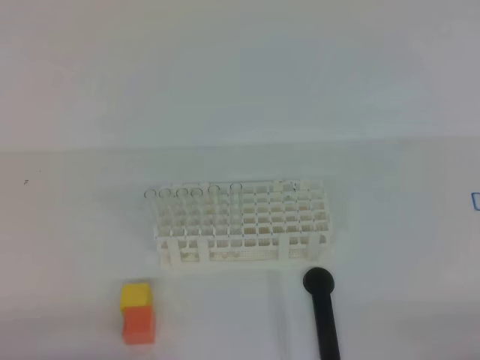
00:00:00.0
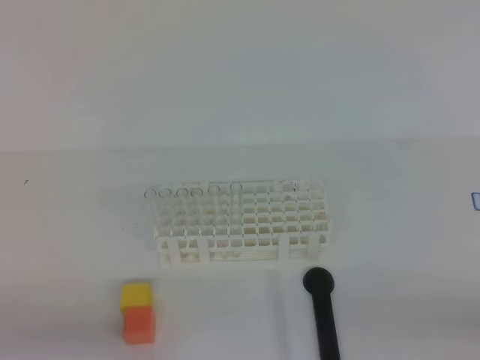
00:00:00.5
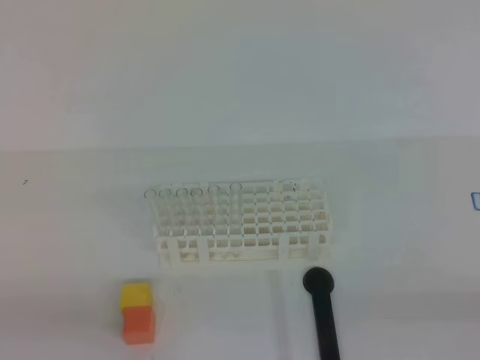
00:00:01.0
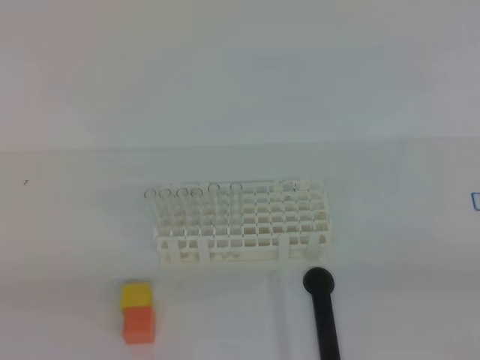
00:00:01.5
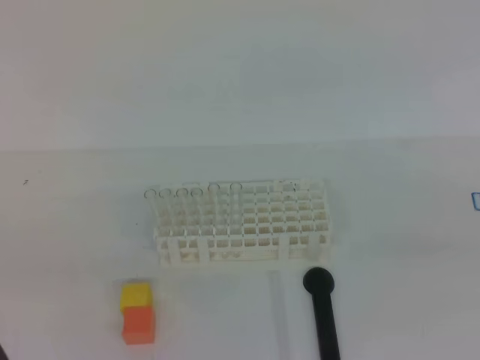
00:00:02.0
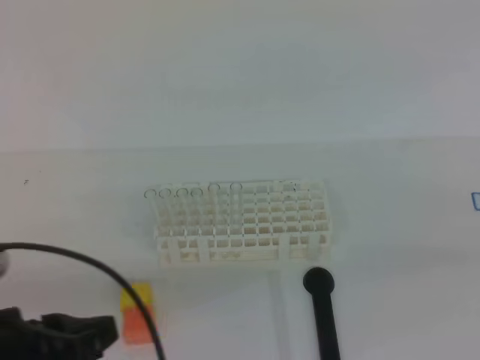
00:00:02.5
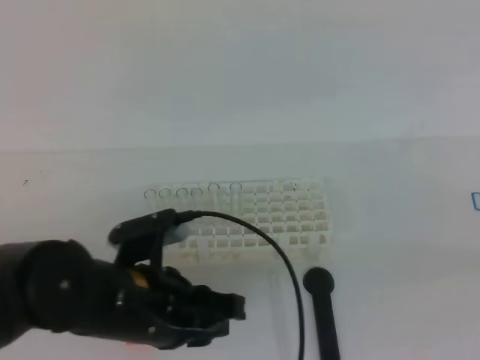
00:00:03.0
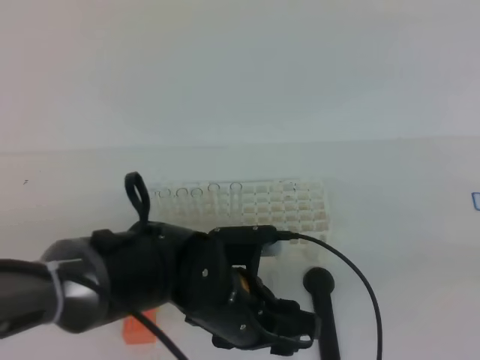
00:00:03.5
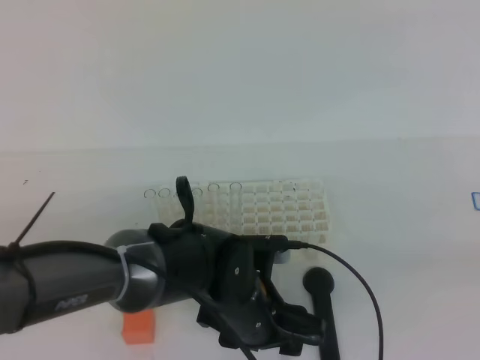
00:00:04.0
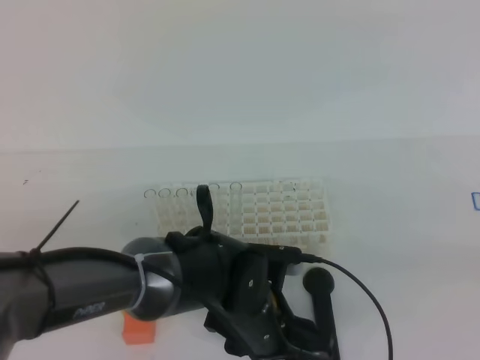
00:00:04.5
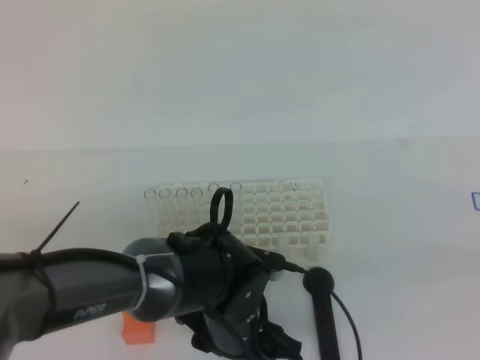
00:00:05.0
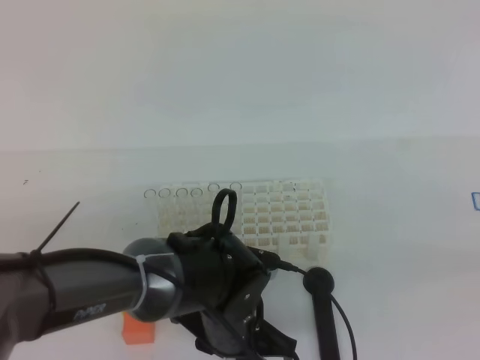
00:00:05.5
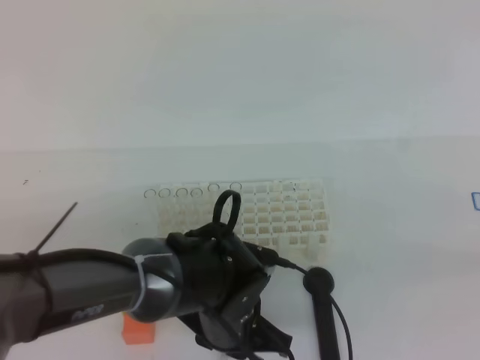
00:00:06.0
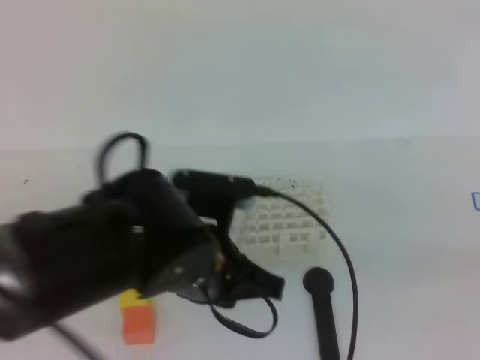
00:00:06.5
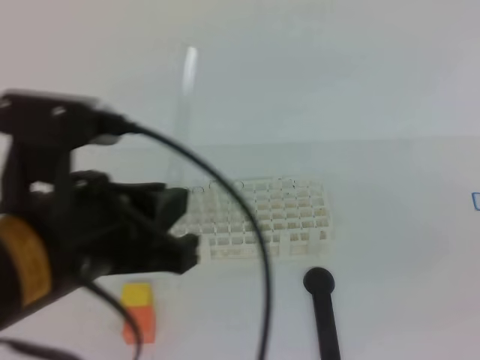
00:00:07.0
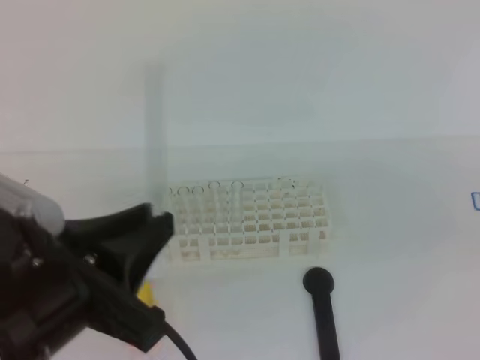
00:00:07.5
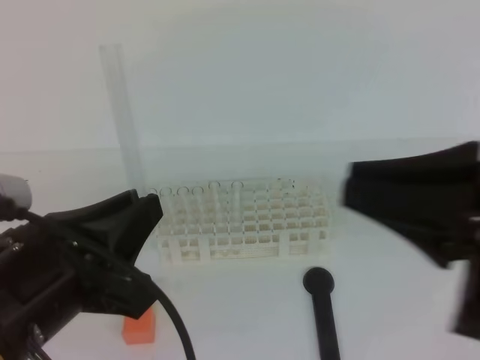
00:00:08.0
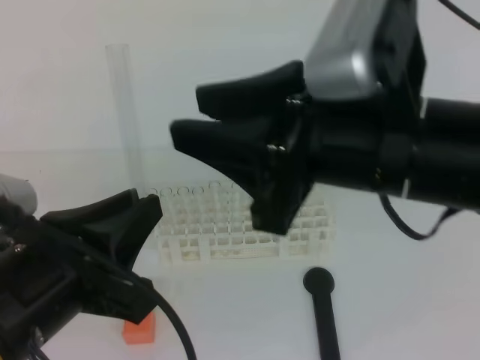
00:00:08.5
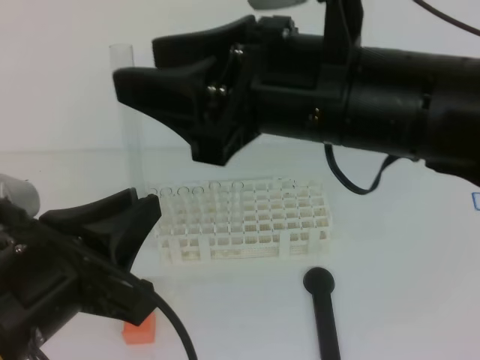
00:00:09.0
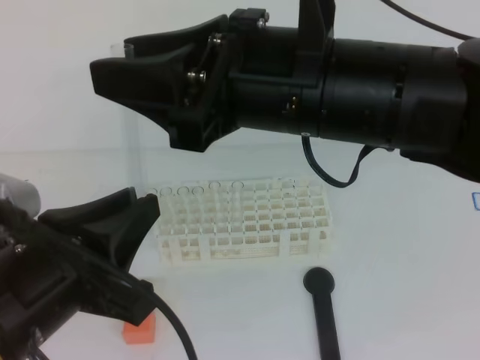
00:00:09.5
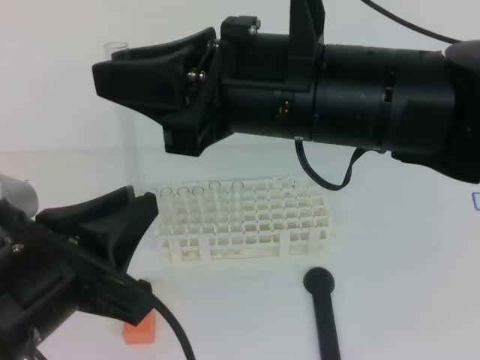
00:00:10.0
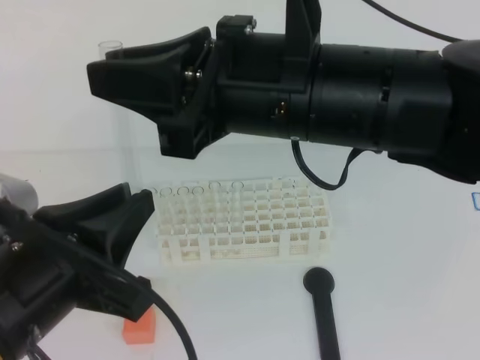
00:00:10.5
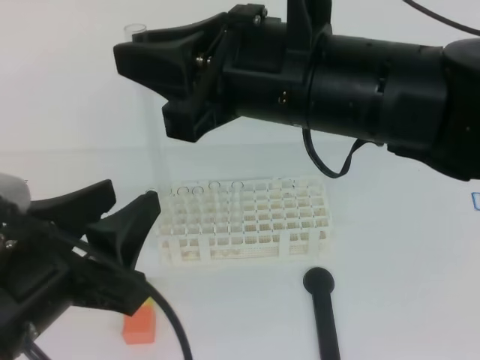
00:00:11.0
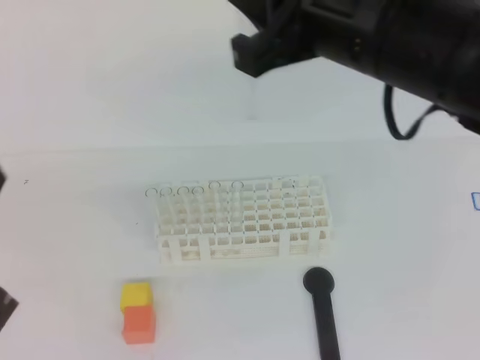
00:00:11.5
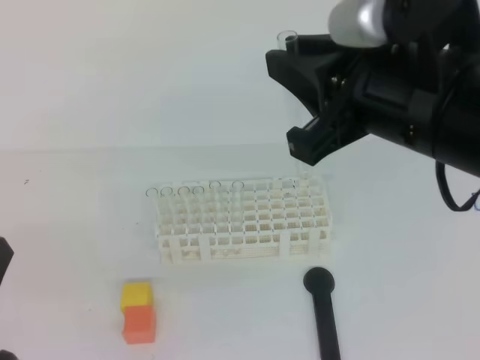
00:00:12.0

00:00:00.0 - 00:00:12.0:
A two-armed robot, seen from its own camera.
00:00:02.0 - 00:00:04.0: The left gripper heads to the right, forward and downward, covering some 35 cm, and opens up.
00:00:04.0 - 00:00:06.0: The left gripper closes its fingers.
00:00:06.0 - 00:00:08.0: The left gripper heads upward, to the left and backward, covering about 25 cm. Meanwhile the right gripper travels to the left and forward by about 15 cm.
00:00:08.0 - 00:00:10.0: The right gripper goes some 15 cm to the left and forward, and opens and closes again.
00:00:10.0 - 00:00:12.0: The right gripper heads to the right, covering about 10 cm; the left gripper goes about 10 cm to the left, and opens, then closes again.

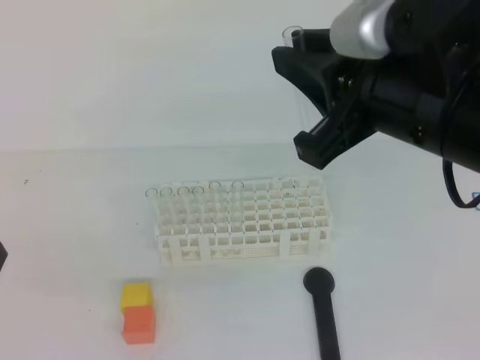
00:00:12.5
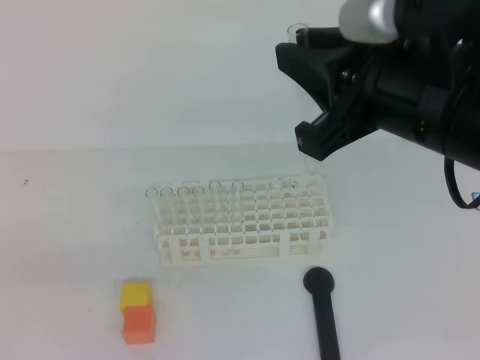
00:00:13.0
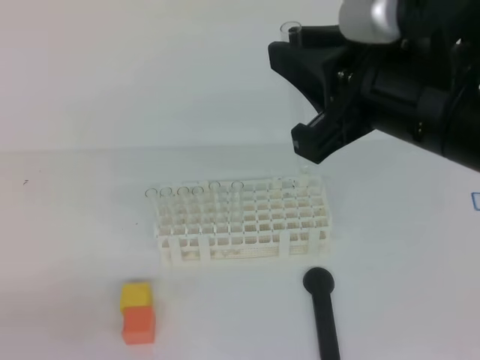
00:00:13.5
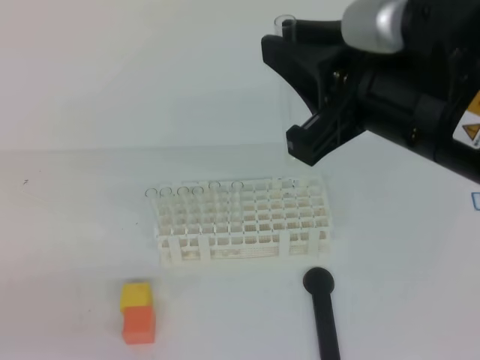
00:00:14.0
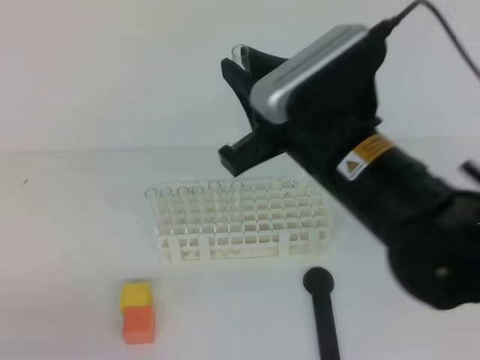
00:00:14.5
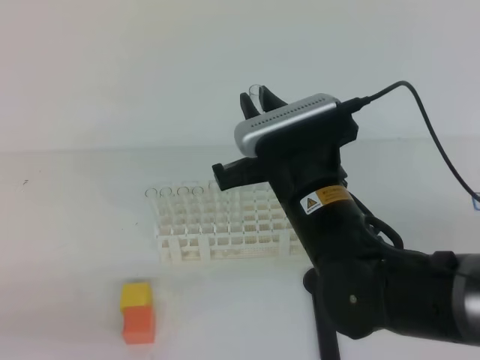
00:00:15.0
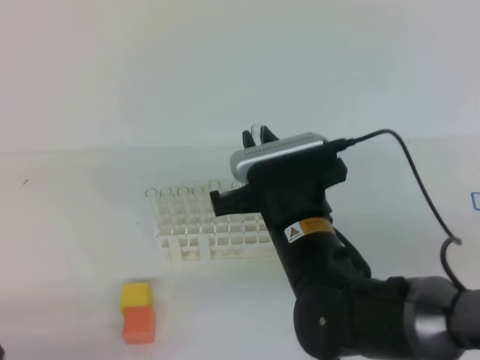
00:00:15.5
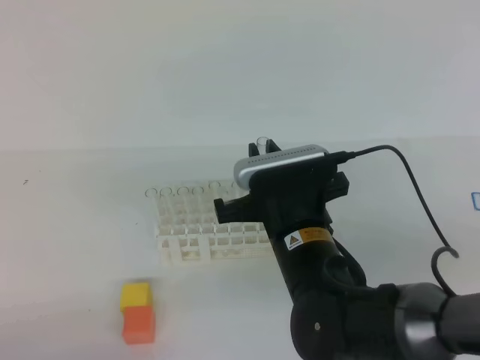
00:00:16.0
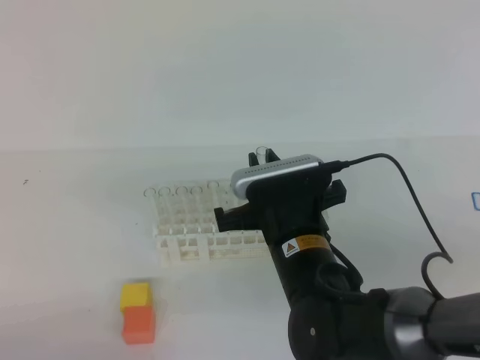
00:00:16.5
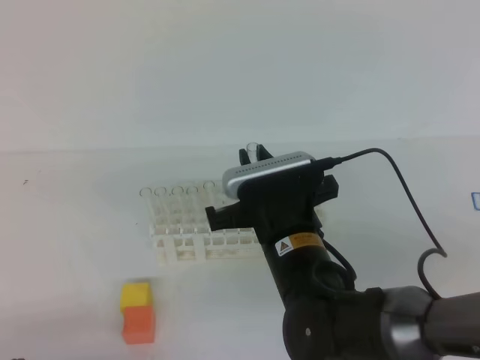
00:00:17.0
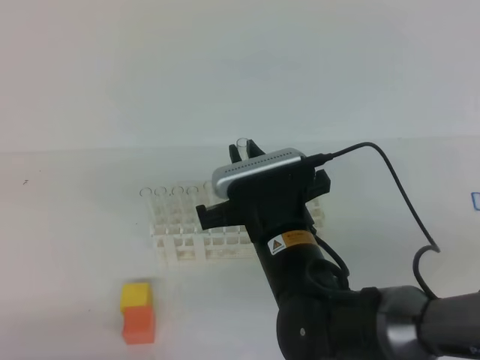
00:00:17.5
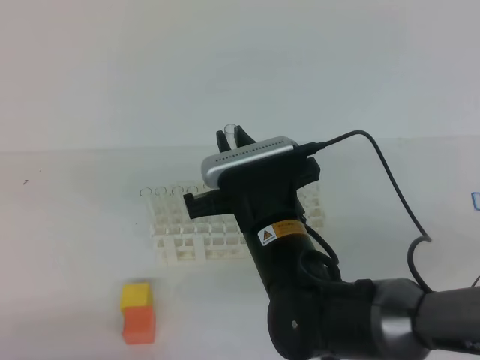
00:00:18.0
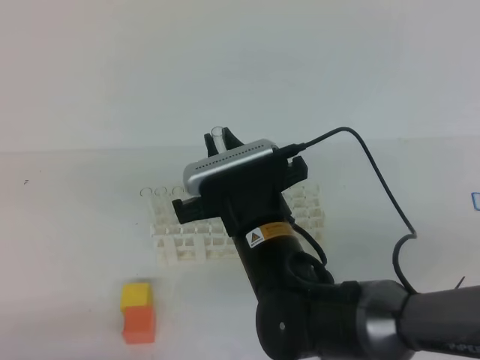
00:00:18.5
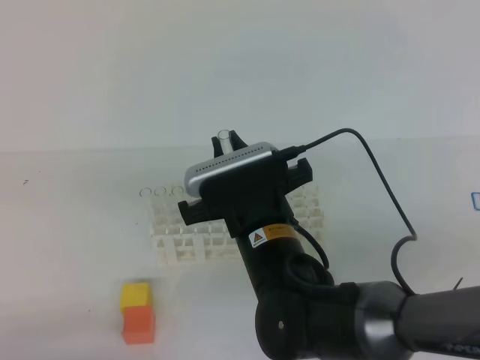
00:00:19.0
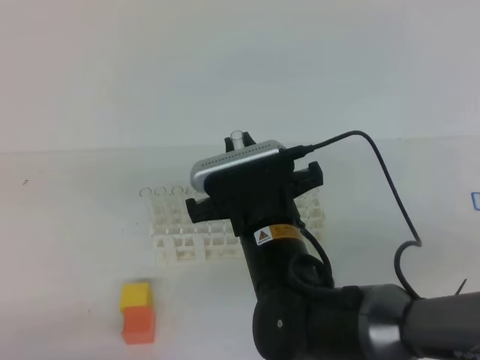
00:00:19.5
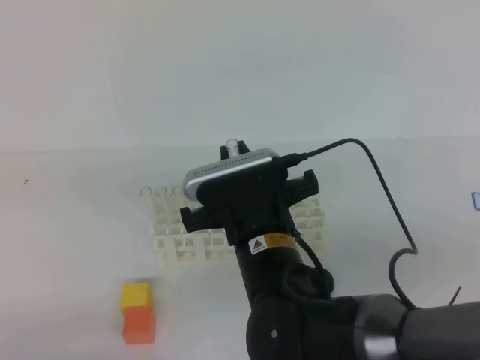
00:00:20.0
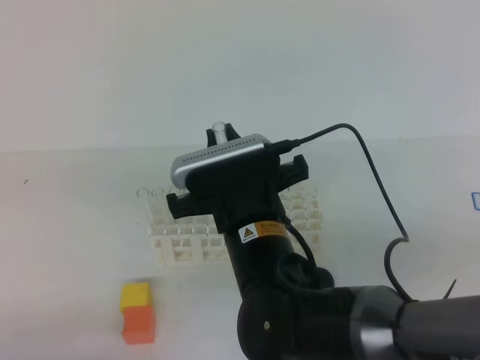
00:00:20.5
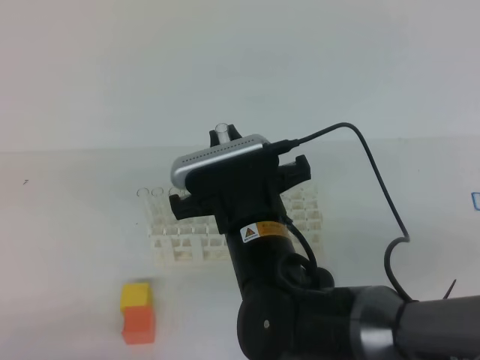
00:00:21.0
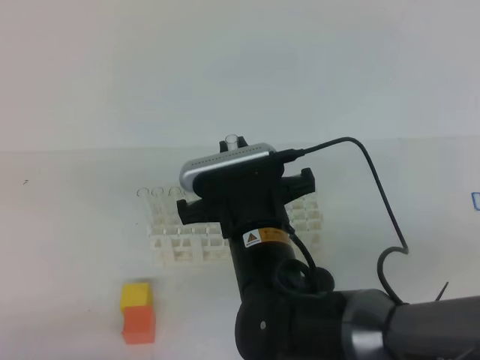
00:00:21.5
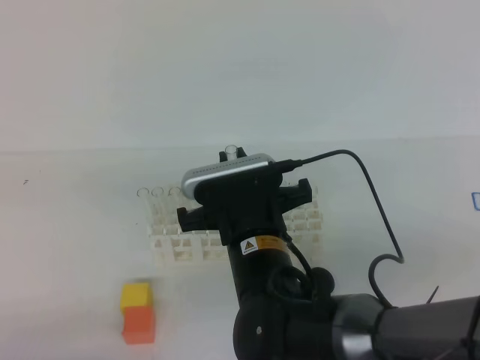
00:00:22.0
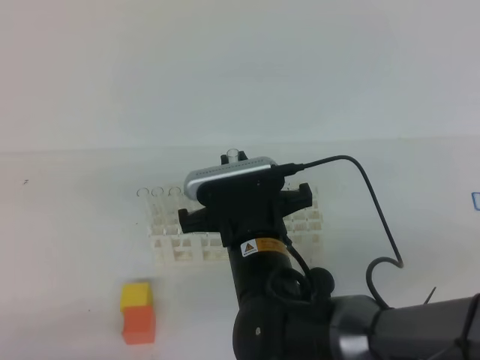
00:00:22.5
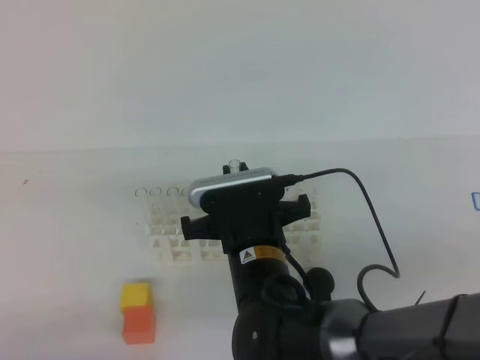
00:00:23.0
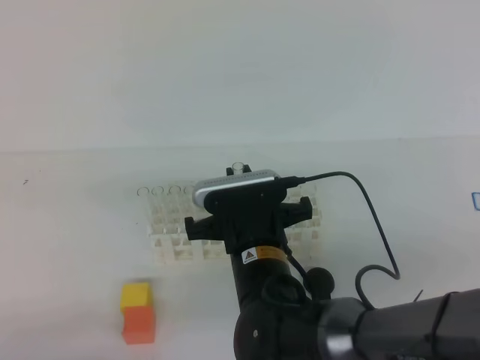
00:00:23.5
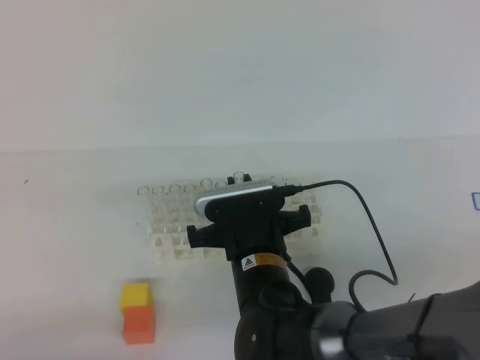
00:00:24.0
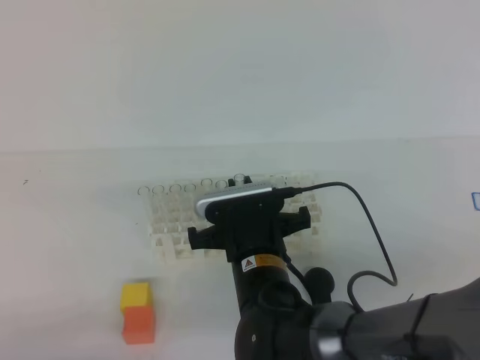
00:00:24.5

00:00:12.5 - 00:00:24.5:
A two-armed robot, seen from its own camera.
00:00:12.5 - 00:00:14.5: The left gripper travels downward by roughly 5 cm; the right gripper travels downward and to the left by about 10 cm.
00:00:14.5 - 00:00:16.5: The left gripper shifts about 5 cm downward, while the right gripper heads downward, covering roughly 15 cm.
00:00:16.5 - 00:00:24.5: The grippers stay close to where they were, moving slightly.

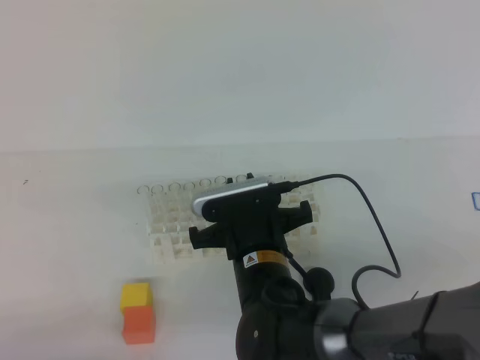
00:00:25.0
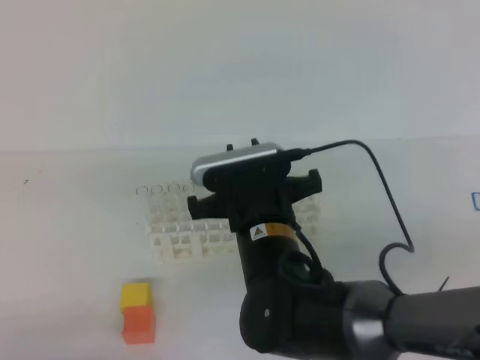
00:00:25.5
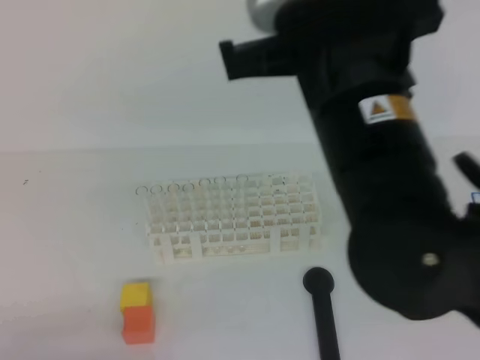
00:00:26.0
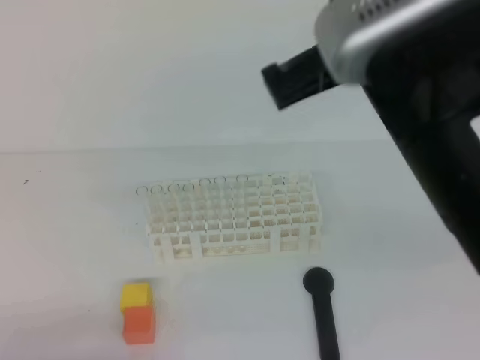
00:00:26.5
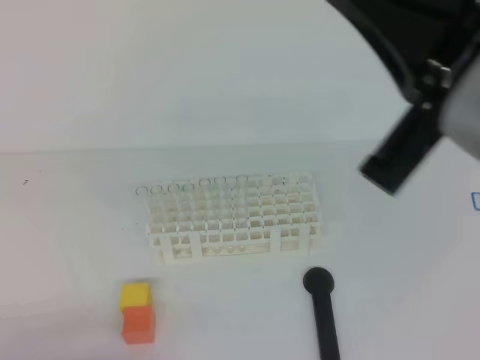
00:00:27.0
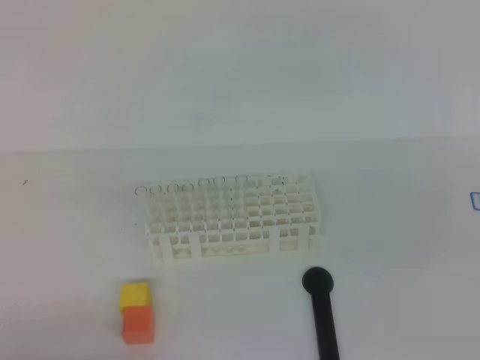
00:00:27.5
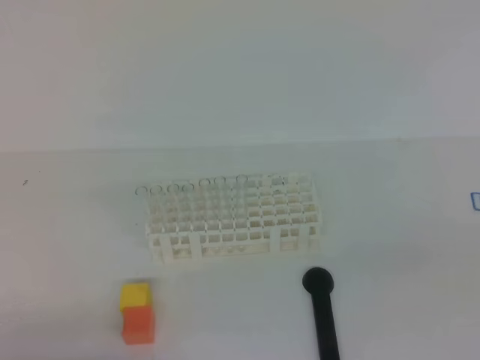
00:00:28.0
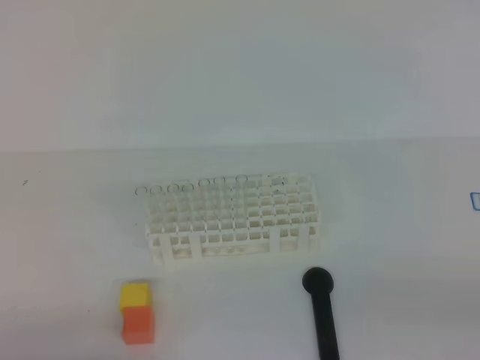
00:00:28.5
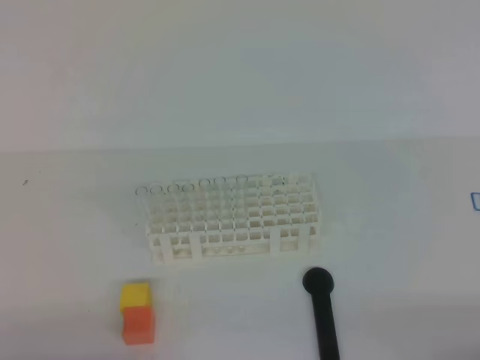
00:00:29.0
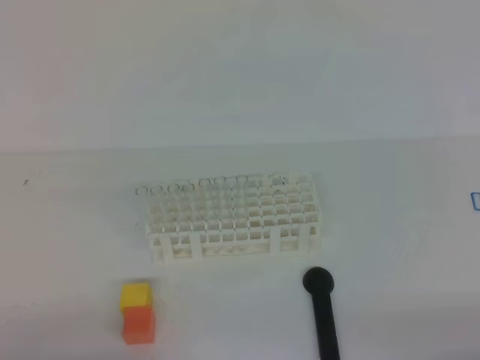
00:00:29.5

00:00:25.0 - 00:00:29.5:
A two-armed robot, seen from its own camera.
00:00:25.0 - 00:00:27.0: The right gripper heads upward, to the right and backward, covering roughly 35 cm, and closes.
00:00:27.0 - 00:00:29.5: The right gripper is displaced downward and to the right by roughly 30 cm.
